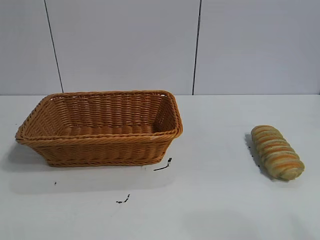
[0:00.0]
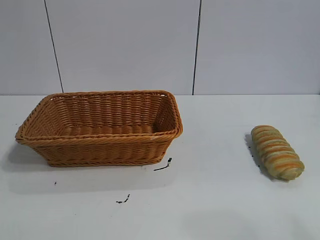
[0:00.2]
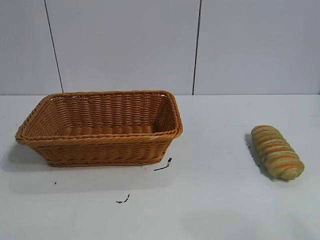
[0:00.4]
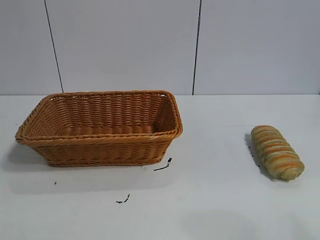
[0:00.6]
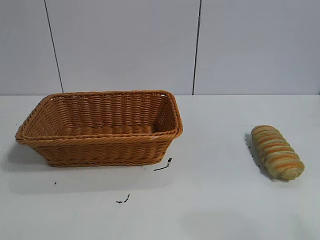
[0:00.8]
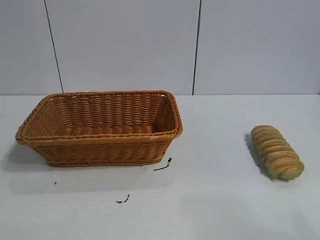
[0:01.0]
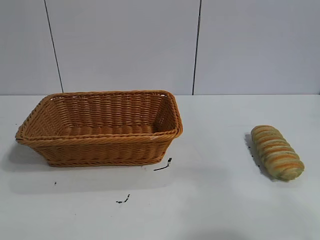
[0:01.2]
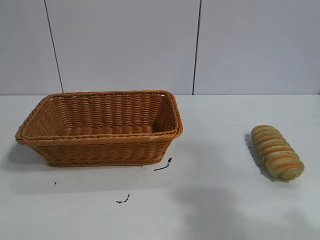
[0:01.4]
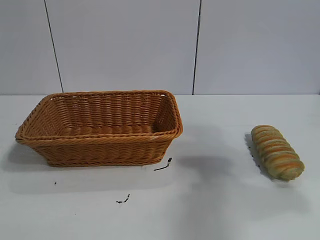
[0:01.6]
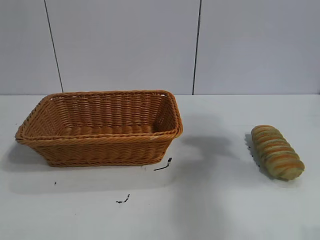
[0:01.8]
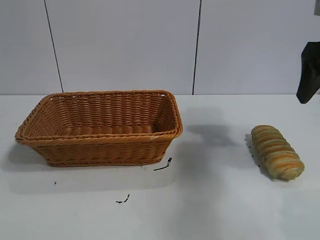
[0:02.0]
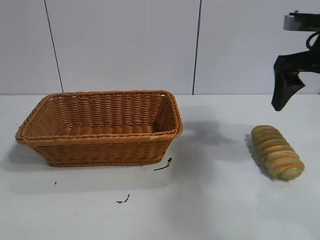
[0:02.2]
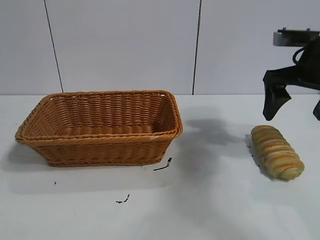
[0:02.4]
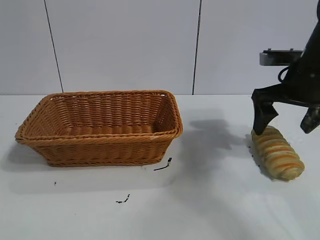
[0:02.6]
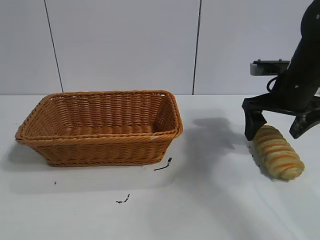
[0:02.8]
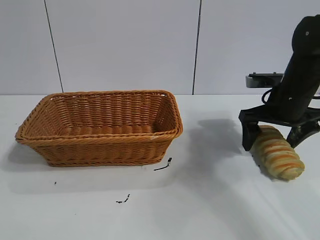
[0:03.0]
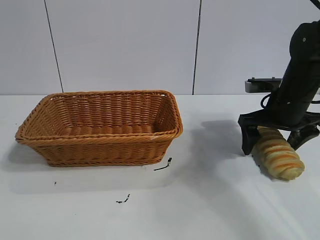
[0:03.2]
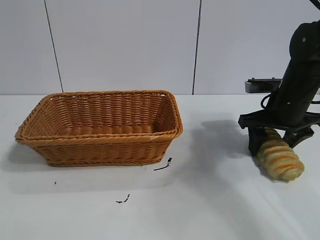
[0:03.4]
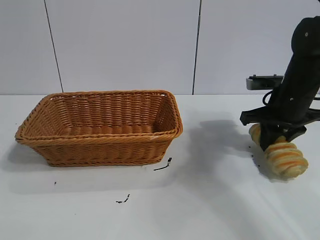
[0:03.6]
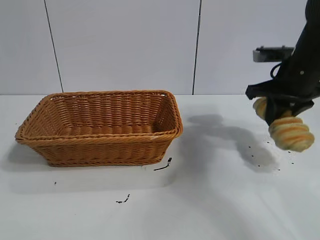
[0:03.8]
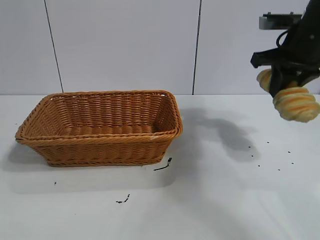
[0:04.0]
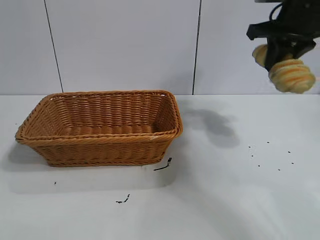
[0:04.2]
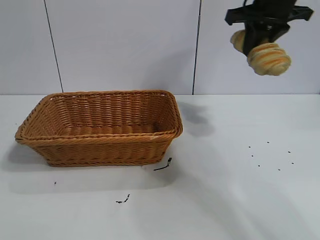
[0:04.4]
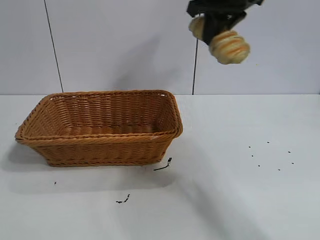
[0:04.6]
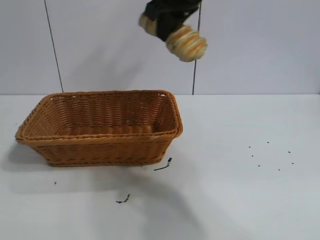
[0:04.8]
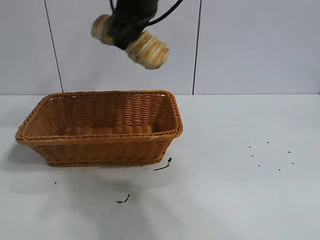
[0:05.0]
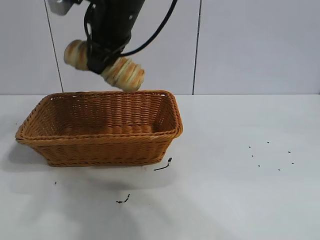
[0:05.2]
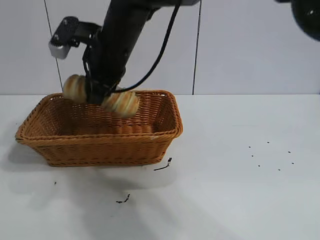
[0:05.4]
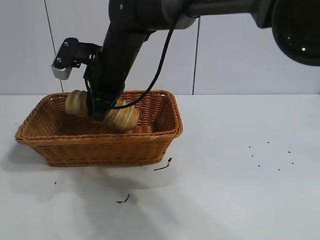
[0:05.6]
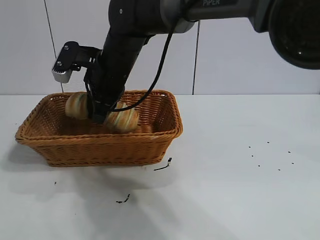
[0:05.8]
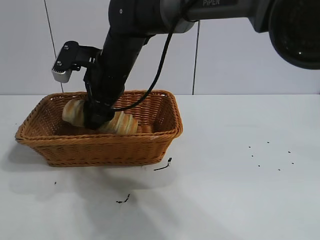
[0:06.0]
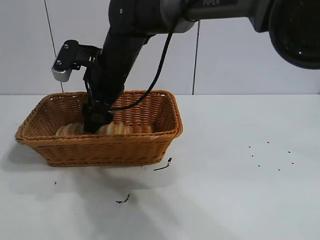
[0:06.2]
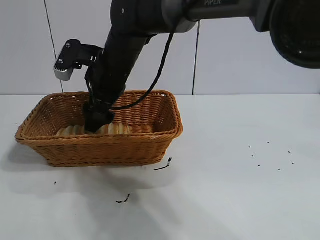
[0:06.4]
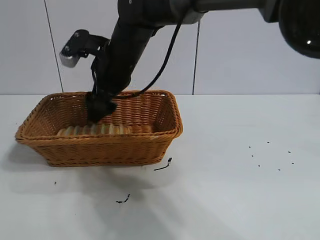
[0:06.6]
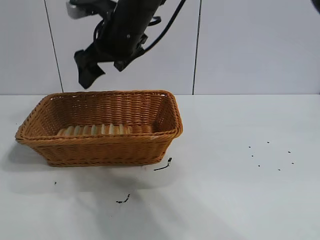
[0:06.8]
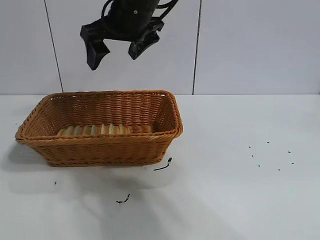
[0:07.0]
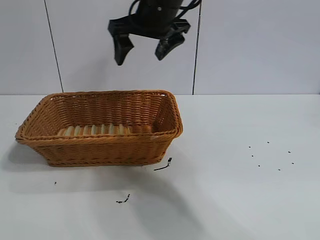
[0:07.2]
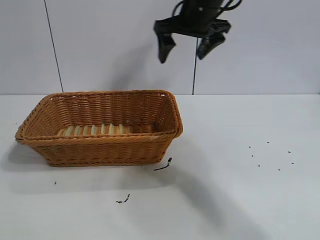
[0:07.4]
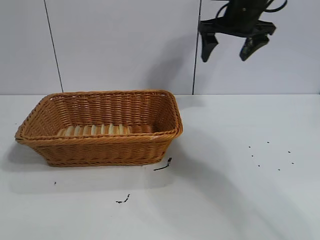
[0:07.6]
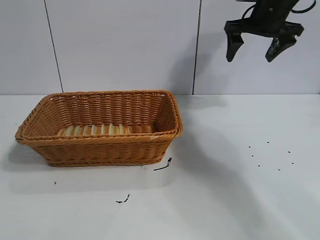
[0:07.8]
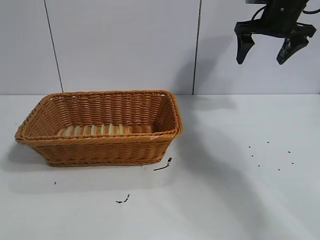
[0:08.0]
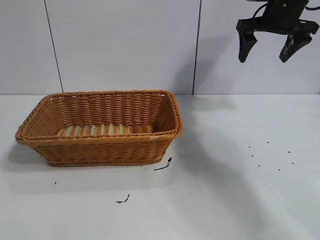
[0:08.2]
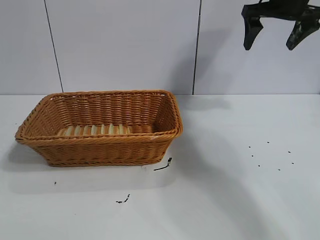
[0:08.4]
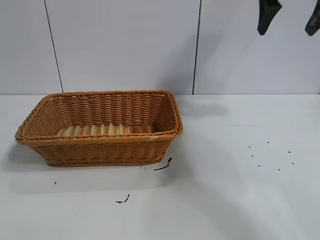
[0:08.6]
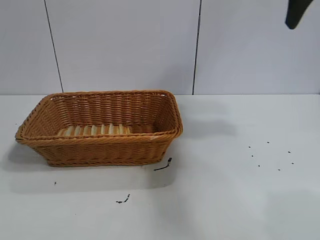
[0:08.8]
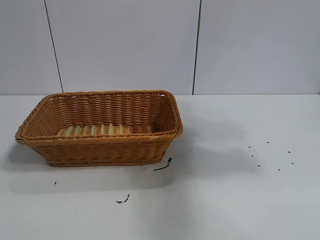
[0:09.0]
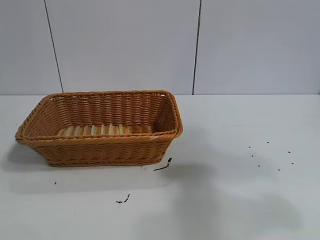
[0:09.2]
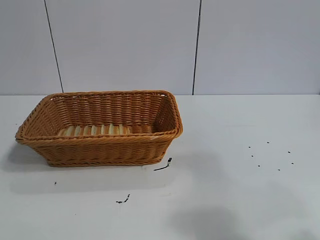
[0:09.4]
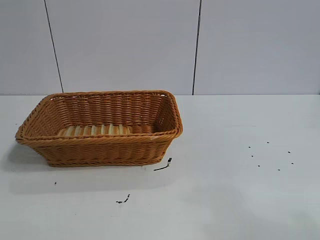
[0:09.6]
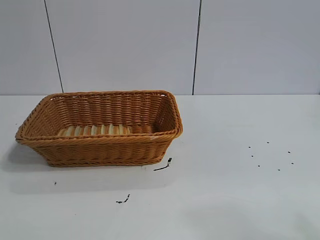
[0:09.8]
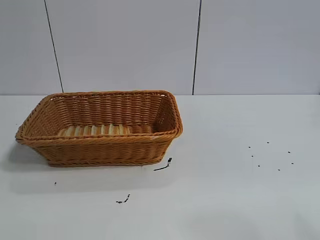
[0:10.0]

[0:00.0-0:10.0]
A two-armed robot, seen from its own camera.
Task of the whole recording: pick up the long bread and put it into the basket.
Step, 0:02.0 to 0:03.6: Grasp the long bread with right gripper.
Step, 0:03.8 to 0:06.6: Place the long bread in the basket with right gripper.
